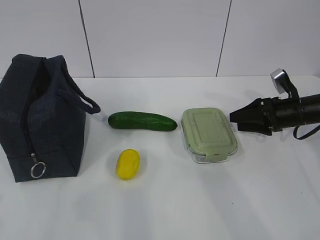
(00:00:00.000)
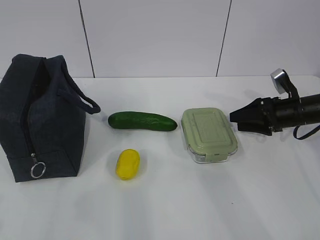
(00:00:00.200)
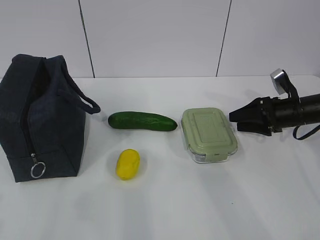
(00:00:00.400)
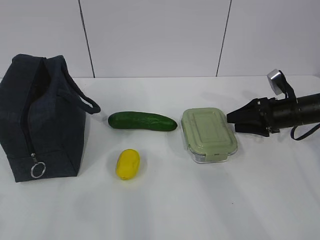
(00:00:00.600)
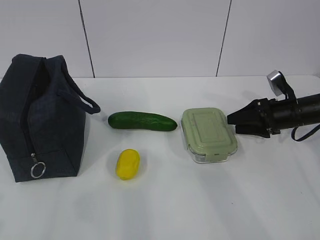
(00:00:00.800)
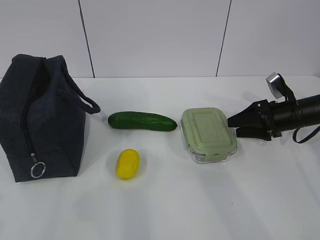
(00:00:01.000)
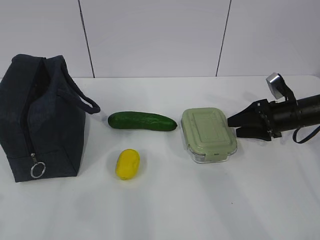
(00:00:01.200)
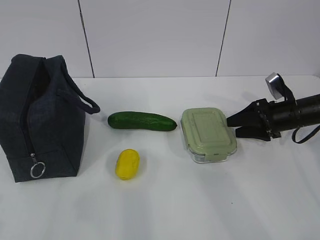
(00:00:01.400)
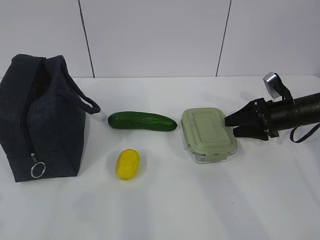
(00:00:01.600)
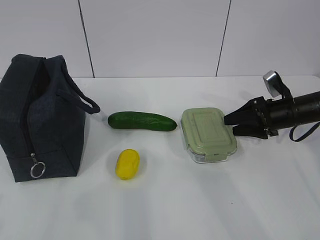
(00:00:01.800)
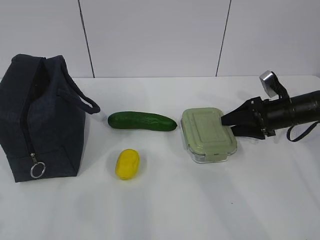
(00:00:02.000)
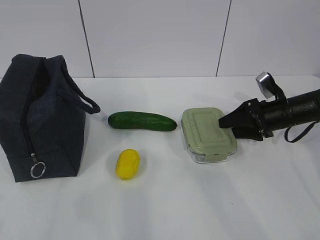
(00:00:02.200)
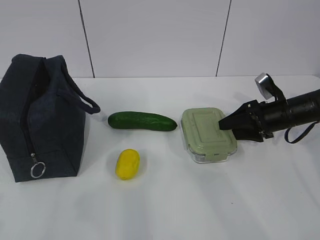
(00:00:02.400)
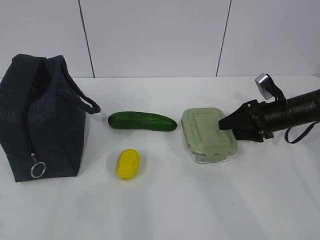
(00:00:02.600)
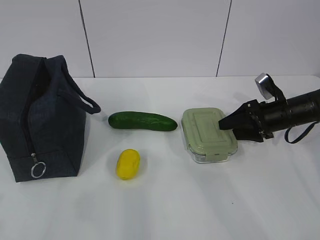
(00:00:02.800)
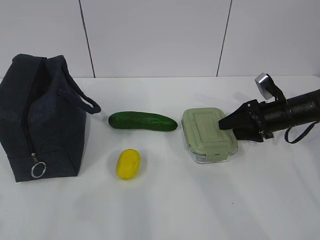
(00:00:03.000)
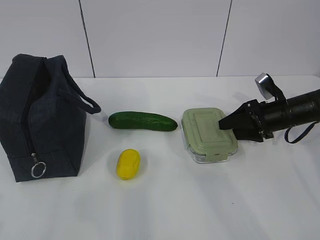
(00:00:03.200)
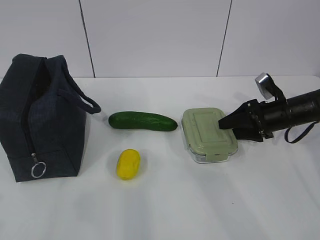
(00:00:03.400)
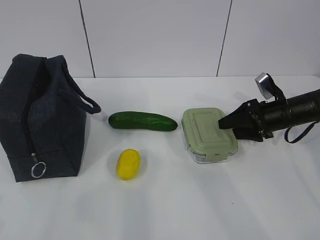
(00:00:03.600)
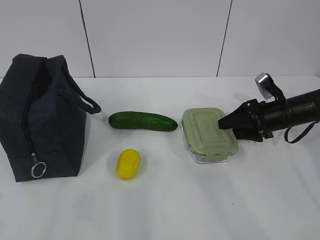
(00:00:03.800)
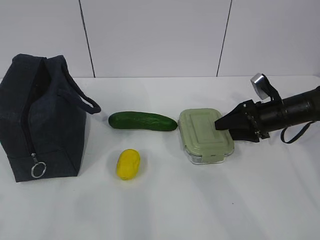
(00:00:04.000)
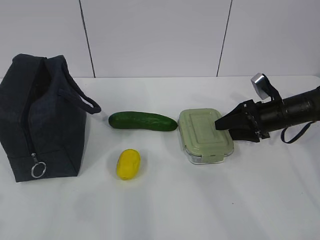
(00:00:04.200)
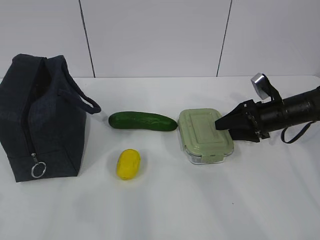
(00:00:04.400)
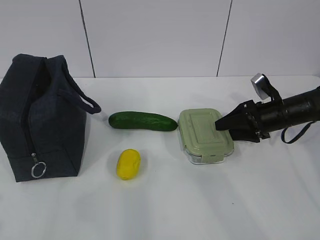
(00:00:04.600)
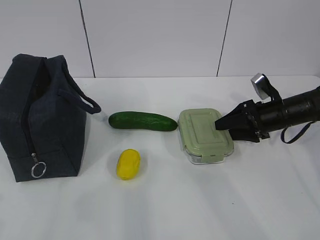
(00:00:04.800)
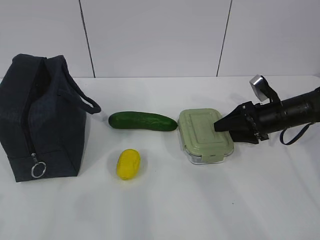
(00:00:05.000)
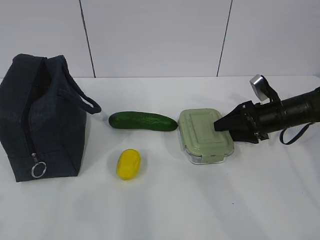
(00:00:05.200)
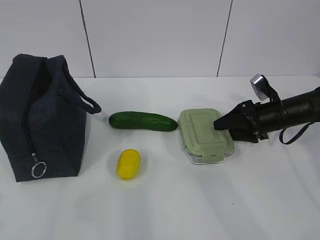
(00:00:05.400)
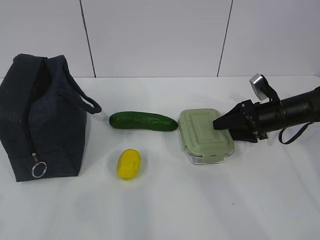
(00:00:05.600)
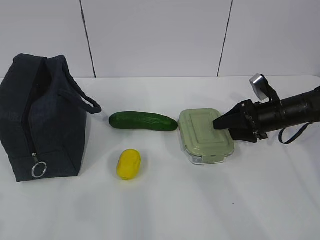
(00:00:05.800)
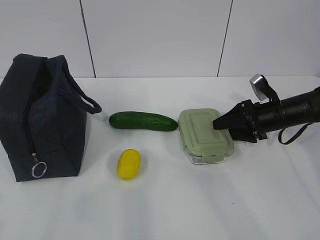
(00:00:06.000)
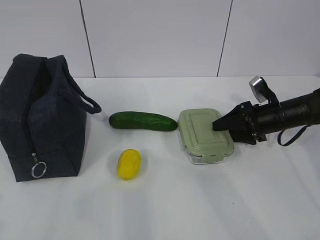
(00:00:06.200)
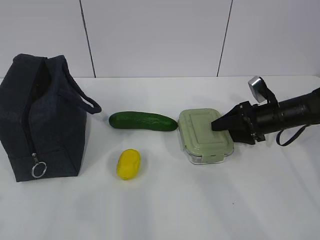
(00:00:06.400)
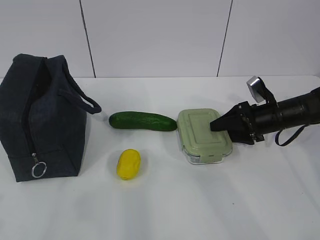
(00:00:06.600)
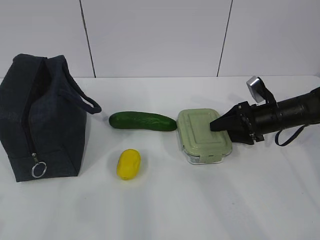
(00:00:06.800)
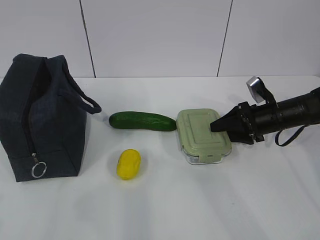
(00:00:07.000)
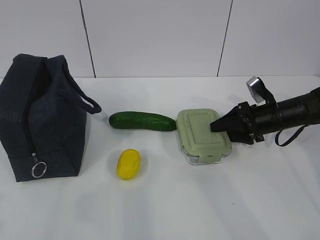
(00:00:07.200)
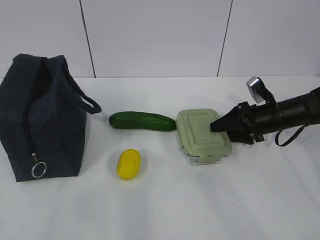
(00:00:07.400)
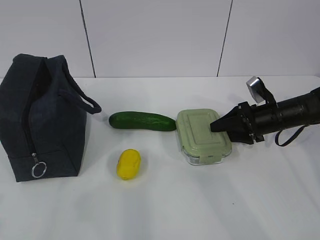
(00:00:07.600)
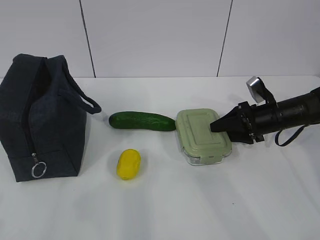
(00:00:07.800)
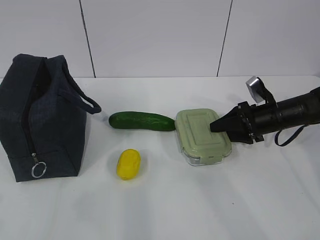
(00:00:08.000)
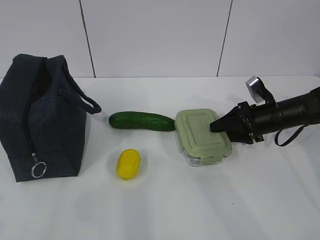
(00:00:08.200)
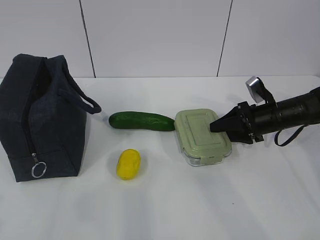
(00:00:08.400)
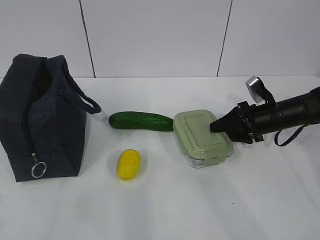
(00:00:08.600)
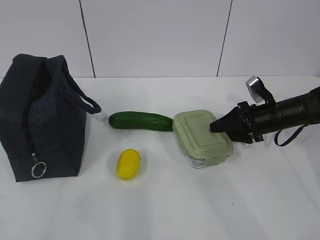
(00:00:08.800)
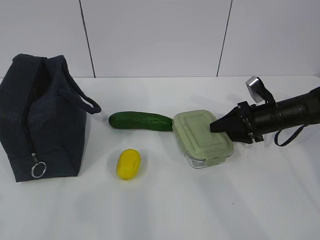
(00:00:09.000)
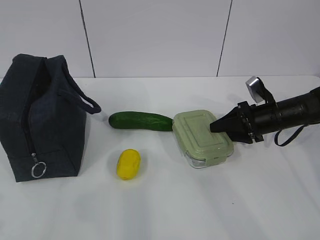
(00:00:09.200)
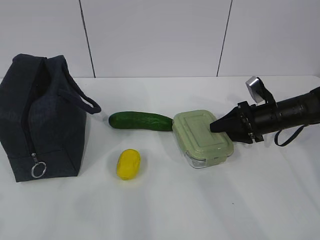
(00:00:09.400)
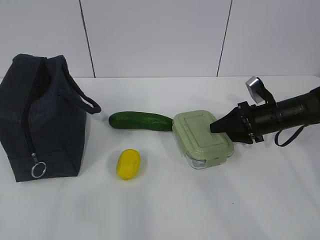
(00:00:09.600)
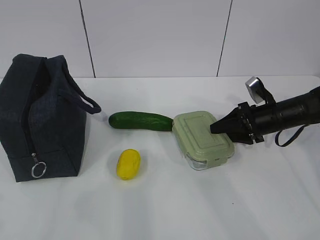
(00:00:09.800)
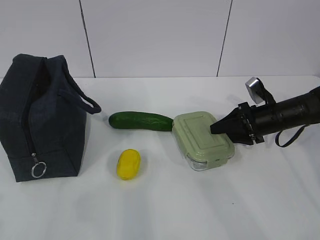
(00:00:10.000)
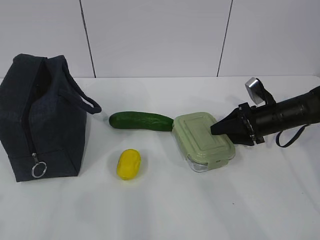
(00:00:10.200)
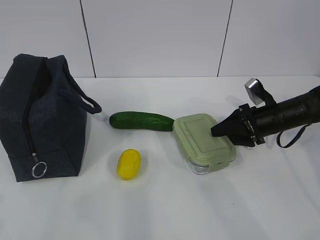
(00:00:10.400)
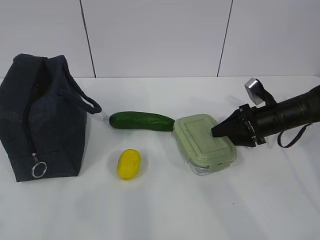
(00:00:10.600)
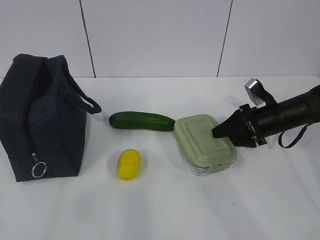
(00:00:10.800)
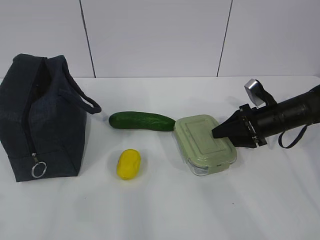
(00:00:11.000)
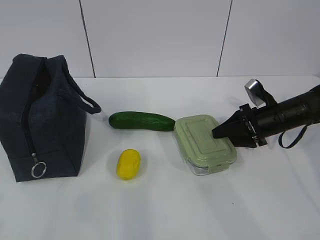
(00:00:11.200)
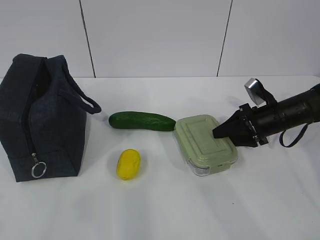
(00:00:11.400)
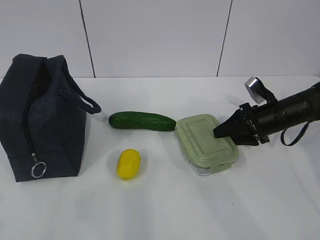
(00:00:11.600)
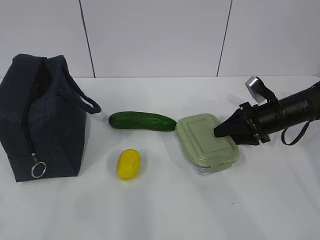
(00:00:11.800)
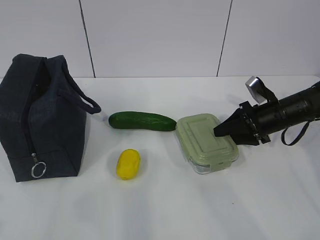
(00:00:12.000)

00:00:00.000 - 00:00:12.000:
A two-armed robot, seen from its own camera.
Step, 00:00:00.000 - 00:00:08.800: Grasp the box with the right gripper.
00:00:00.000 - 00:00:03.000: The grippers move only a little.
00:00:03.000 - 00:00:06.000: Both grippers stay put.
00:00:06.000 - 00:00:10.400: Both grippers stay about where they are.
00:00:10.400 - 00:00:12.000: Neither gripper changes place.

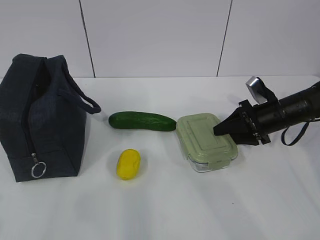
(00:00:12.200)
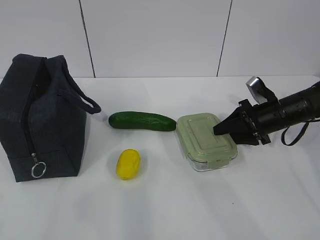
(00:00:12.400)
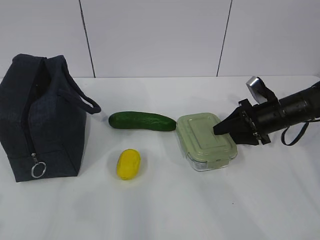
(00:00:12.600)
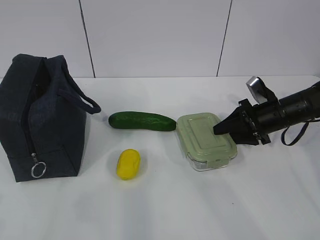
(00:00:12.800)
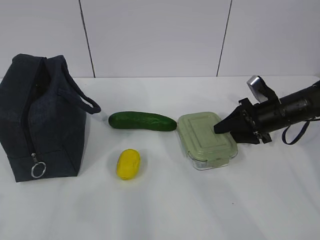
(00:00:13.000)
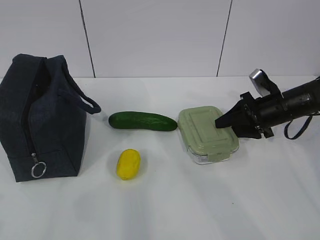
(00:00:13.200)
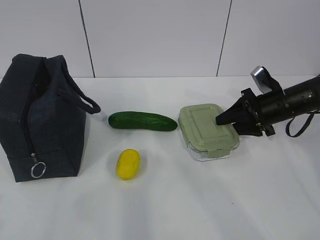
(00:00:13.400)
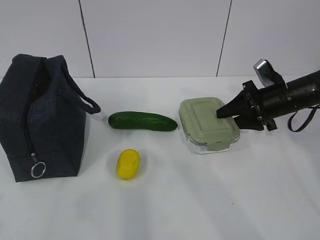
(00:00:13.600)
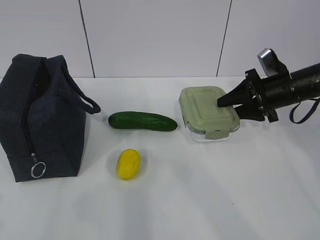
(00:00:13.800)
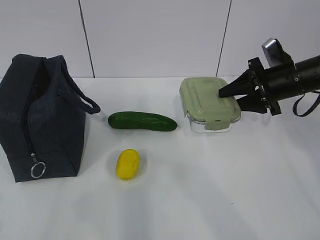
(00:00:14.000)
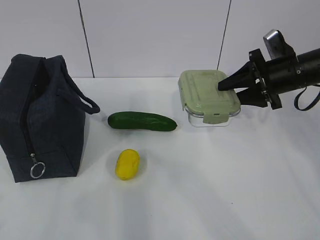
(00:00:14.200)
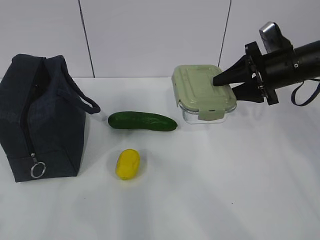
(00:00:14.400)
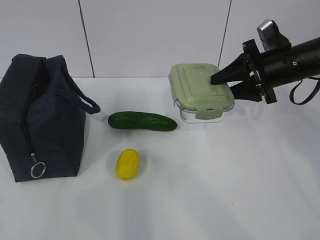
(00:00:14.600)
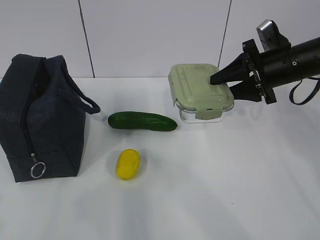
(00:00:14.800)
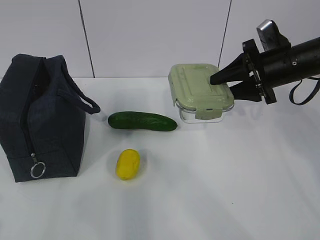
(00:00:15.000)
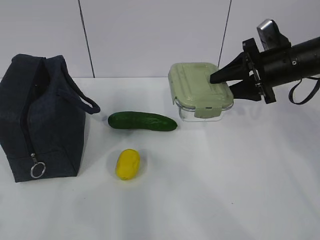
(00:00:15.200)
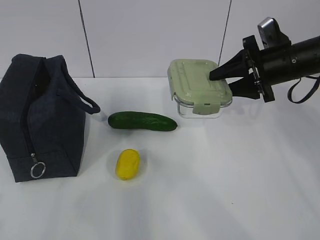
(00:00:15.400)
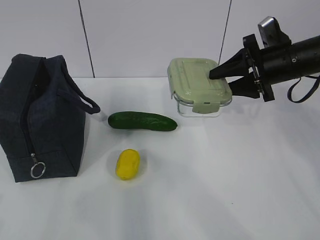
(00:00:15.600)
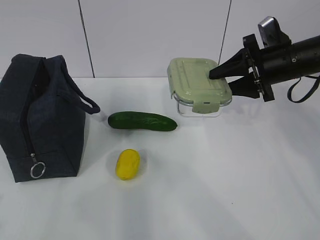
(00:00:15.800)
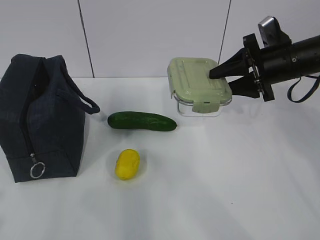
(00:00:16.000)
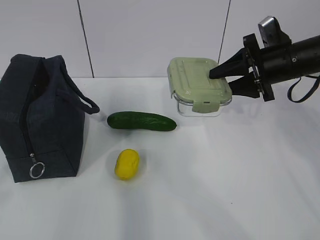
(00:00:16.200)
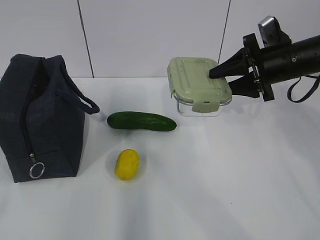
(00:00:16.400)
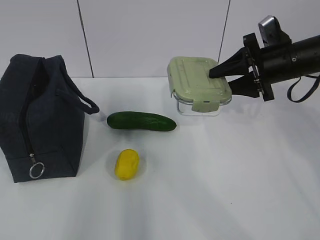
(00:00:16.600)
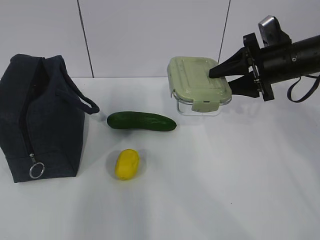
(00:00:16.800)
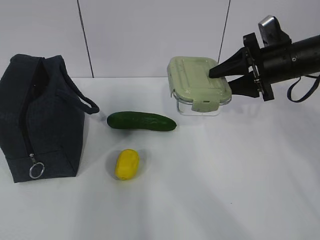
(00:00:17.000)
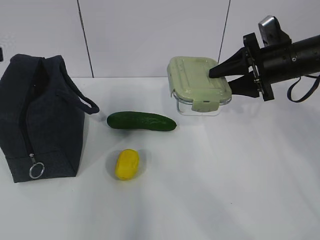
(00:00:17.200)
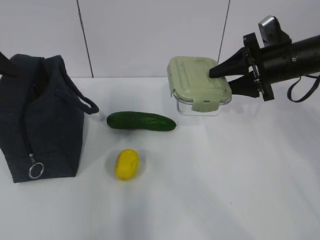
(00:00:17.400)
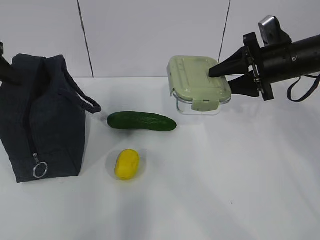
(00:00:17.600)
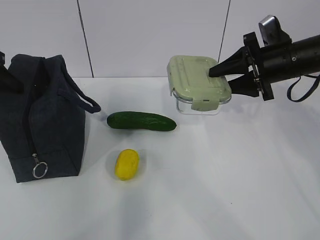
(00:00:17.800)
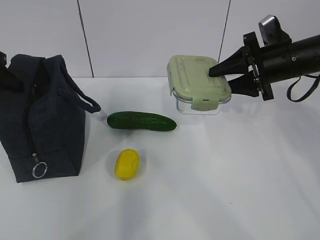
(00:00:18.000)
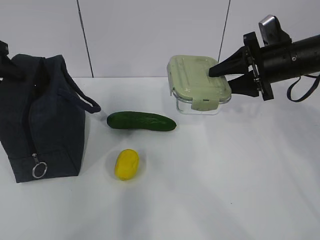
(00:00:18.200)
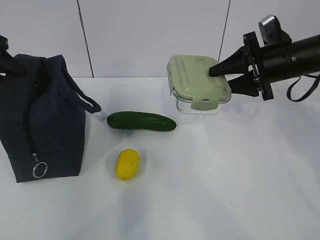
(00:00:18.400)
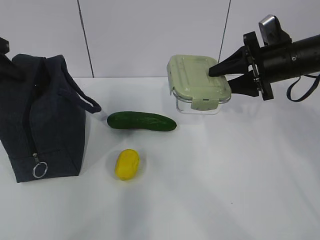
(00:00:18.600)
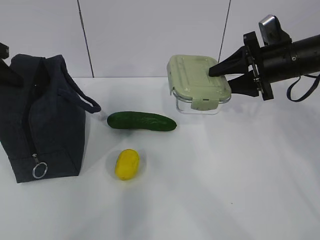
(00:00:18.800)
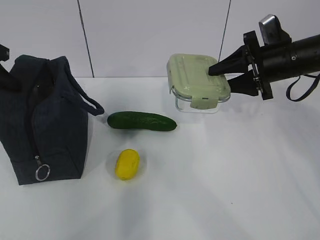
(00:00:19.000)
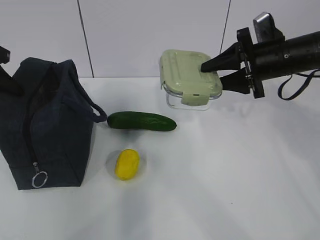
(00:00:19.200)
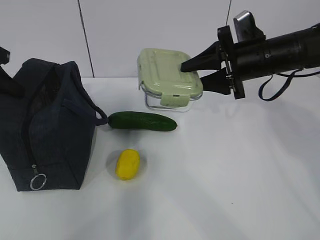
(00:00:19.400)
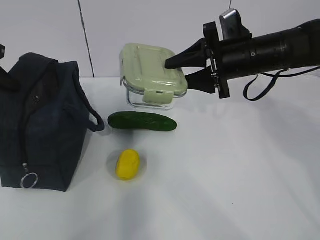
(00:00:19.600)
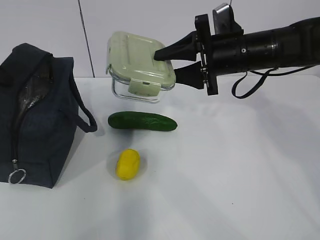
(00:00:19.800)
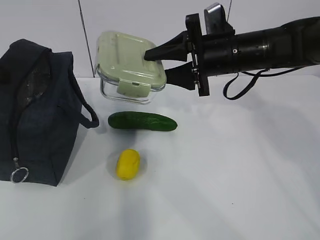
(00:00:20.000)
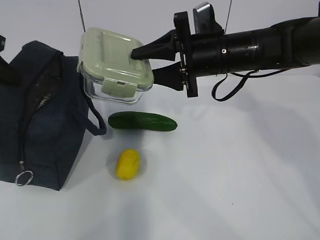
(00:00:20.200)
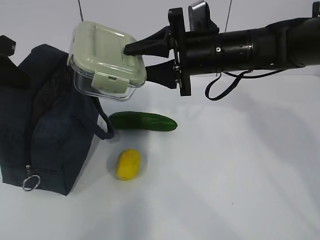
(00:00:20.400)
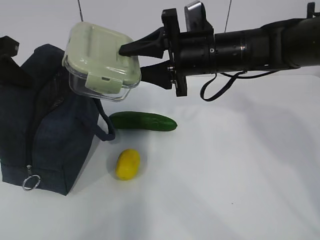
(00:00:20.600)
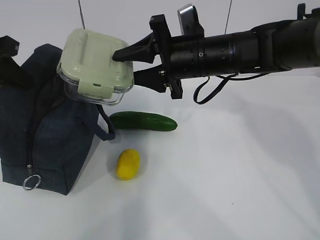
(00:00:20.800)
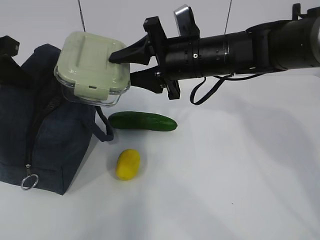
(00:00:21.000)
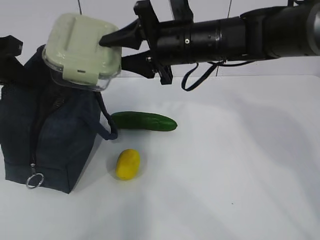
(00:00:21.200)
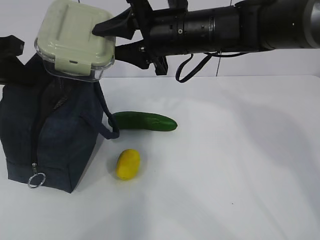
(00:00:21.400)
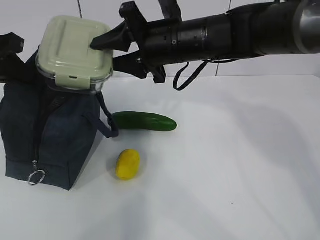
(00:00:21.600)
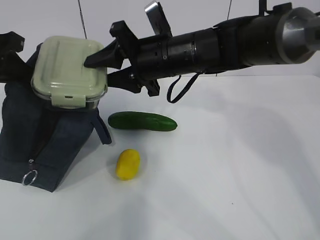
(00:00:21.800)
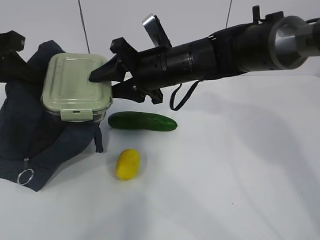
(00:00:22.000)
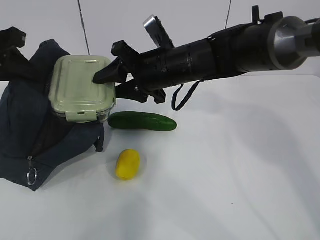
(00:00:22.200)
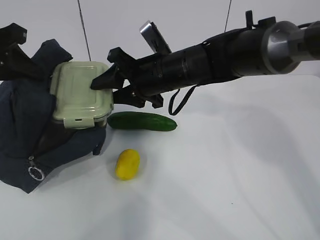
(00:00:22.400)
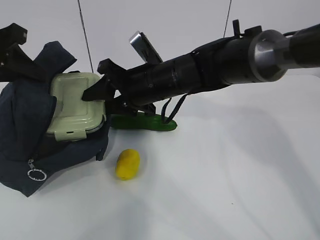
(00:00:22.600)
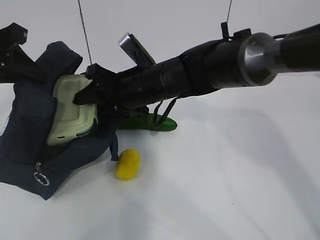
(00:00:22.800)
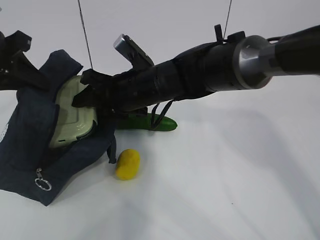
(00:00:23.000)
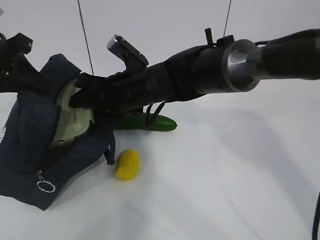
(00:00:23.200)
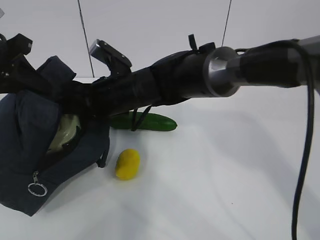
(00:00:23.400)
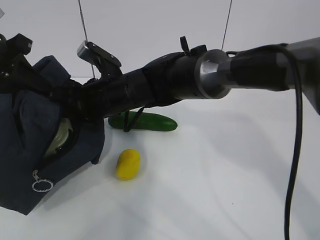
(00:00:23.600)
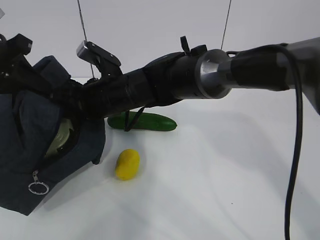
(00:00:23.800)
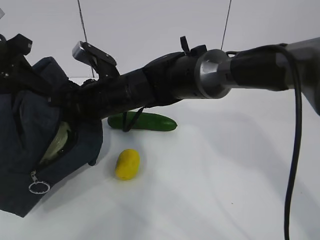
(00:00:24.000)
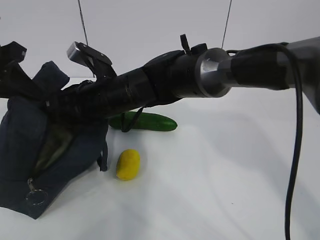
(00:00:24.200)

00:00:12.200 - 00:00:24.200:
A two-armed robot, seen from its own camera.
Step, 00:00:12.200 - 00:00:19.200: Grasp the package with the left gripper.
00:00:12.200 - 00:00:13.800: The right gripper moves upward, some 5 cm.
00:00:13.800 - 00:00:15.200: The right gripper shifts about 5 cm upward.
00:00:15.200 - 00:00:16.600: The left gripper travels forward and upward by roughly 10 cm.
00:00:16.600 - 00:00:18.200: The left gripper shifts some 25 cm forward.
00:00:18.200 - 00:00:19.800: The left gripper closes; the right gripper goes approximately 10 cm to the left.
00:00:19.800 - 00:00:21.200: The right gripper is displaced to the left by roughly 10 cm.
00:00:21.200 - 00:00:22.600: The right gripper shifts approximately 5 cm downward.
00:00:22.600 - 00:00:24.200: The right gripper goes roughly 5 cm to the left.
